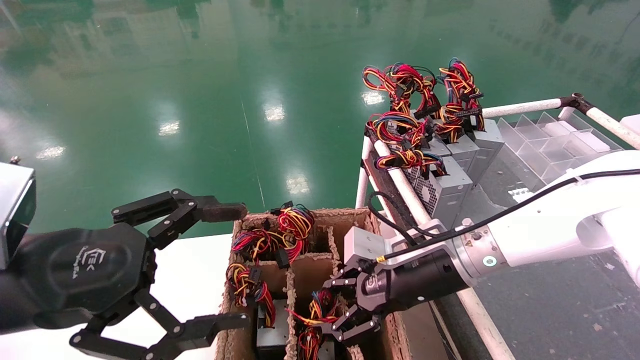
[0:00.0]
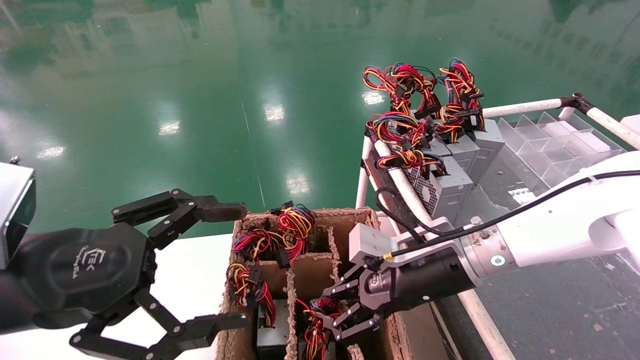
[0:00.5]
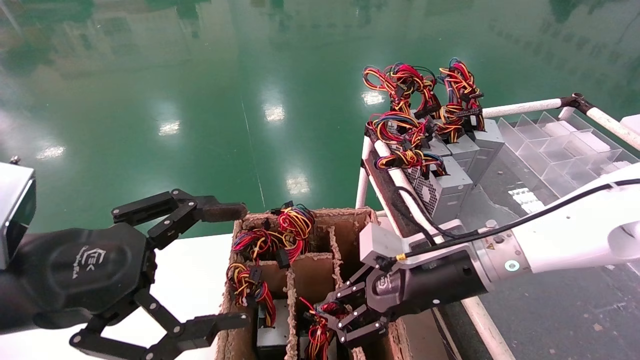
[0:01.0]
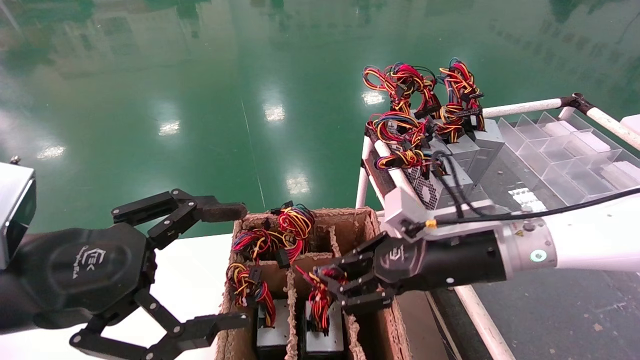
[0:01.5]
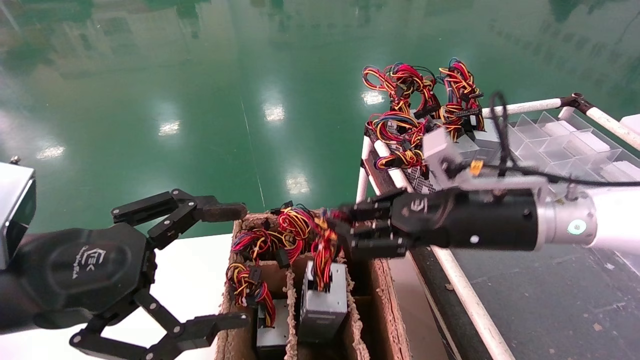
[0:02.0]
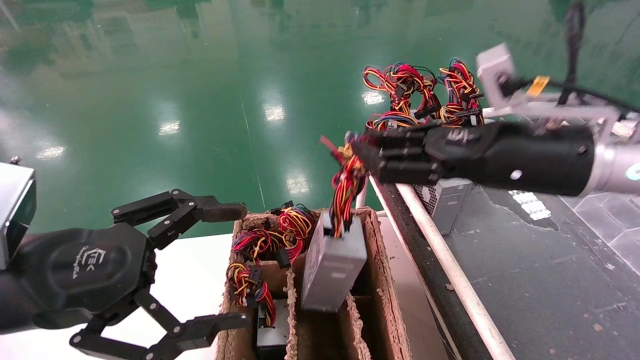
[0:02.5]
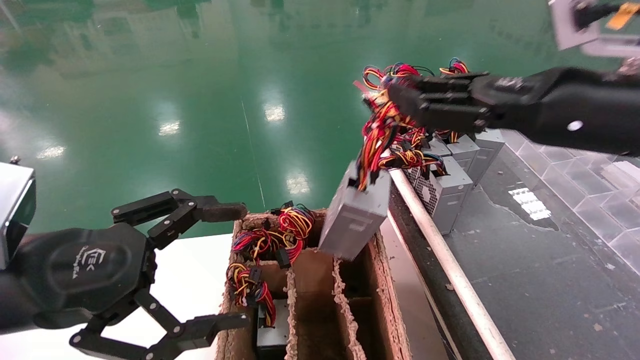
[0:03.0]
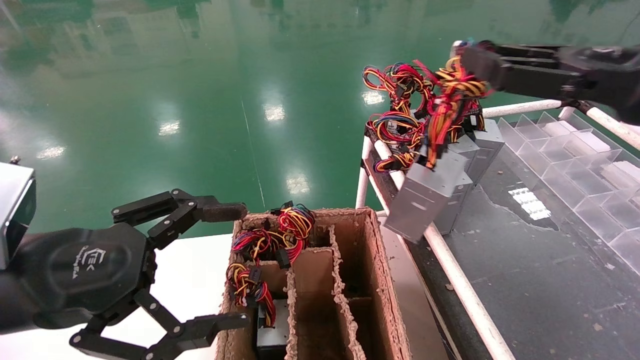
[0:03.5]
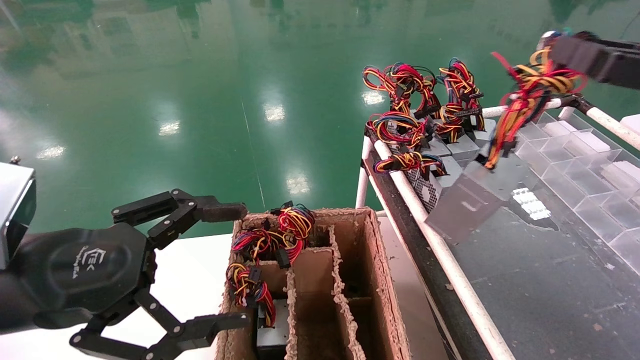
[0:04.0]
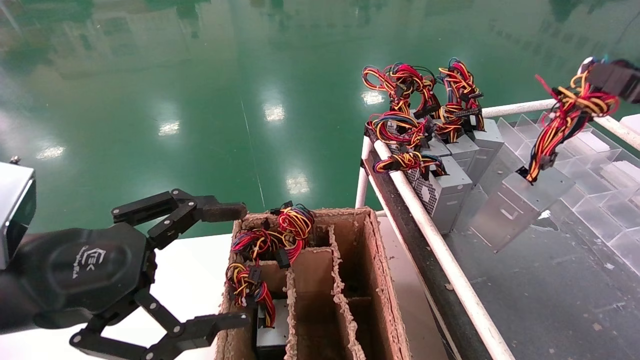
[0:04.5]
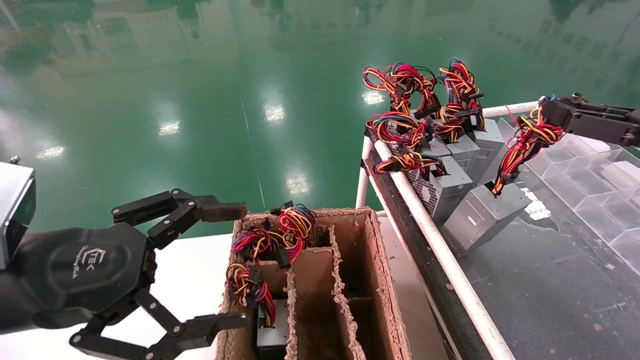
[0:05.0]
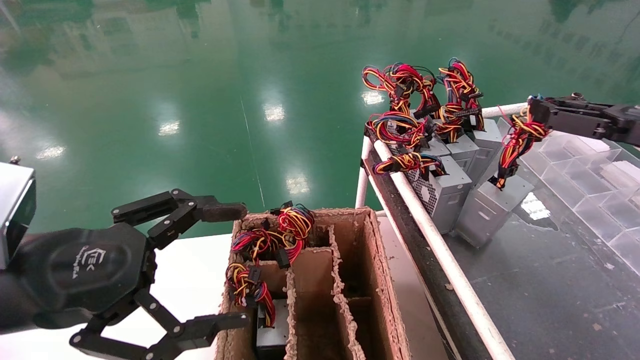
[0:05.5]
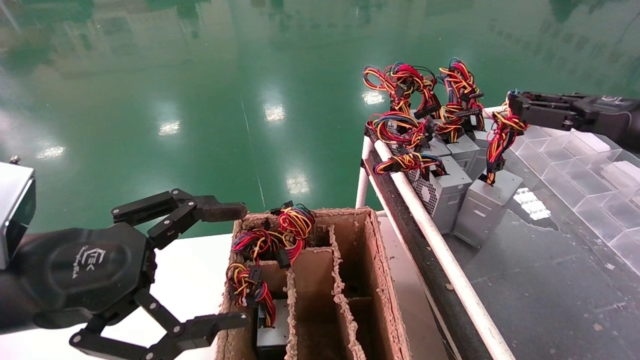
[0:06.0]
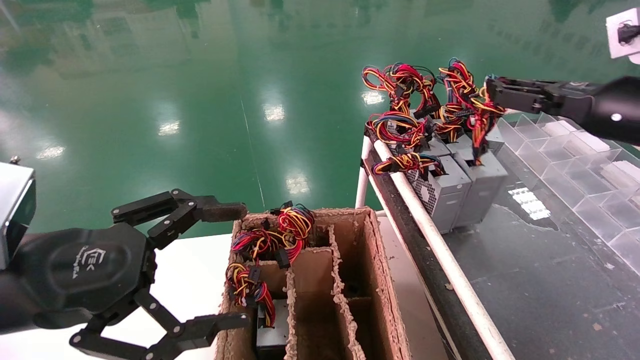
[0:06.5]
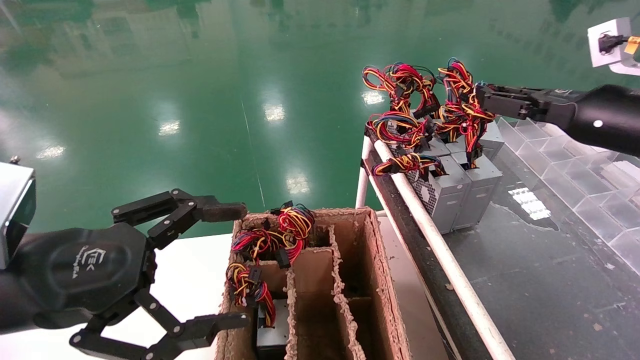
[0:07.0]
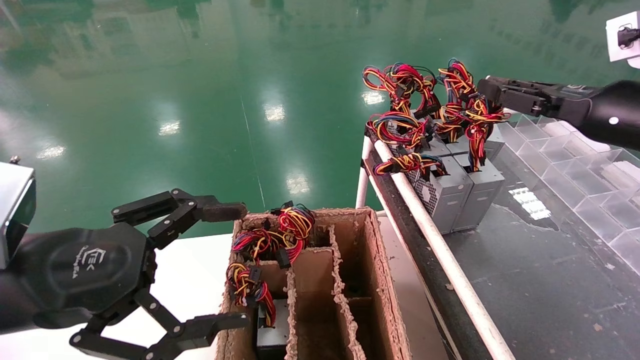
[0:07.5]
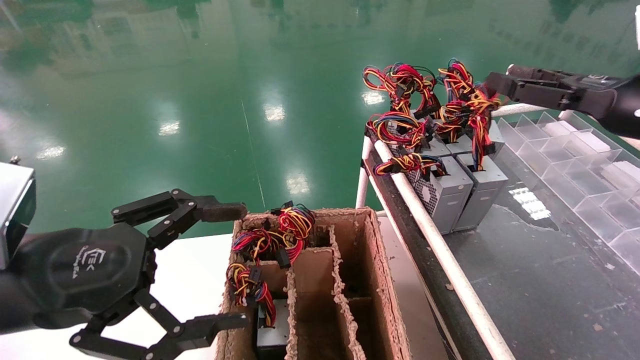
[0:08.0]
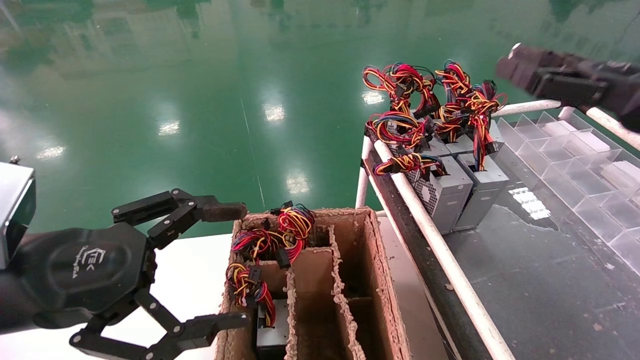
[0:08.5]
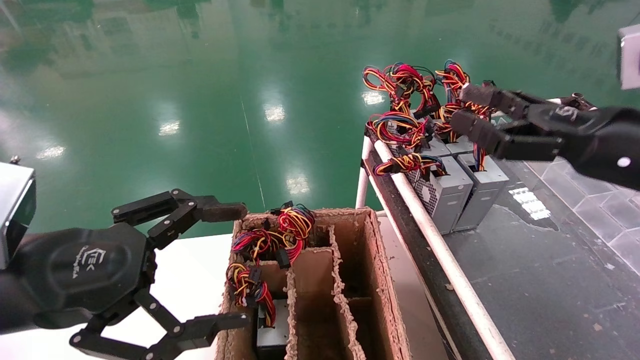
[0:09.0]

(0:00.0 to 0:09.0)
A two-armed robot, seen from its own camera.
Step, 0:01.5 - 0:07.5: Place the power supply on the operating table.
0:00.0 - 0:02.0: The right gripper moves upward and to the right, about 10 cm, and closes.
0:02.0 - 0:04.5: The right gripper goes some 25 cm to the right.
0:04.5 - 0:07.0: The right gripper shifts about 15 cm forward and to the left.
0:07.0 - 0:09.0: The right gripper moves backward, roughly 5 cm, and opens.
